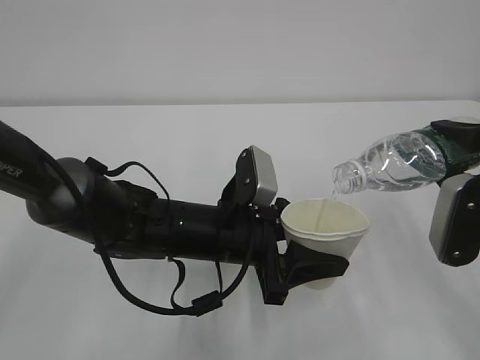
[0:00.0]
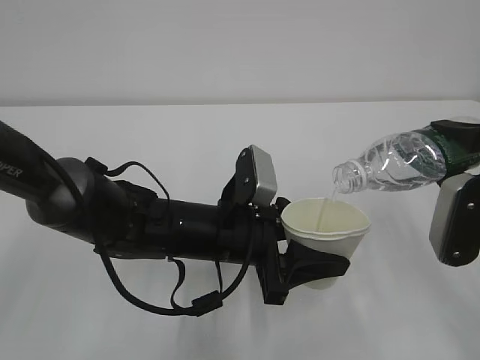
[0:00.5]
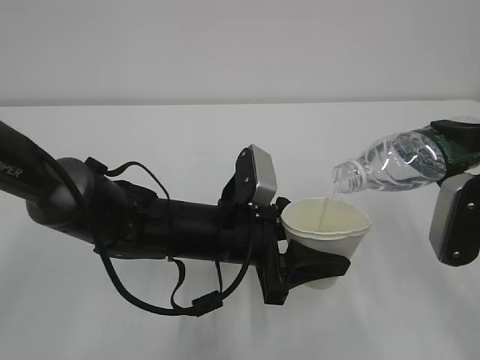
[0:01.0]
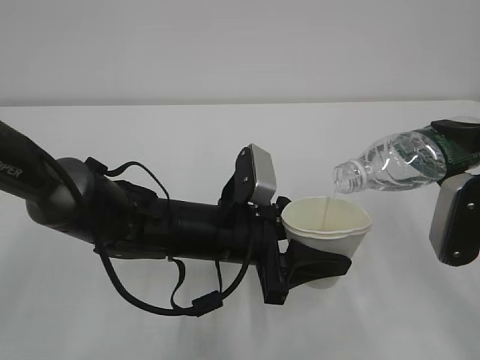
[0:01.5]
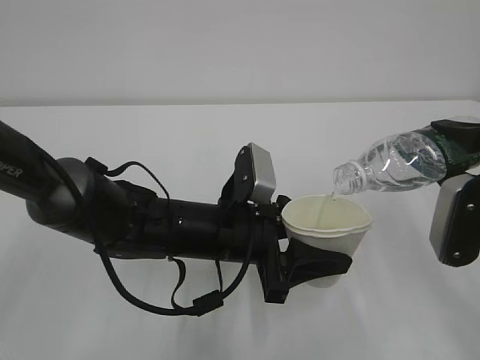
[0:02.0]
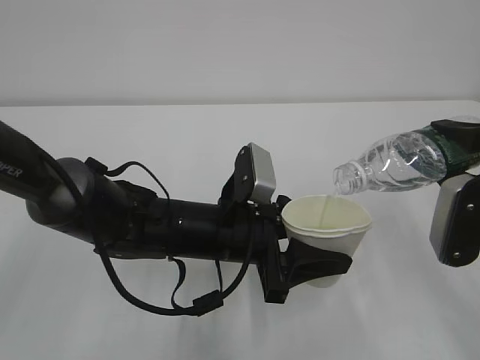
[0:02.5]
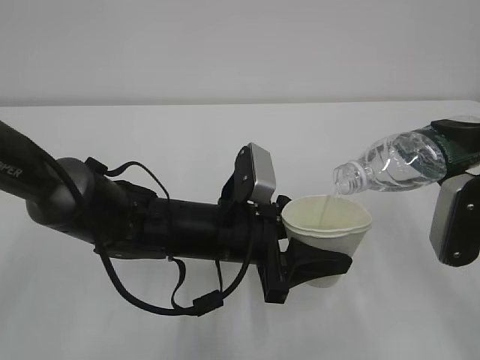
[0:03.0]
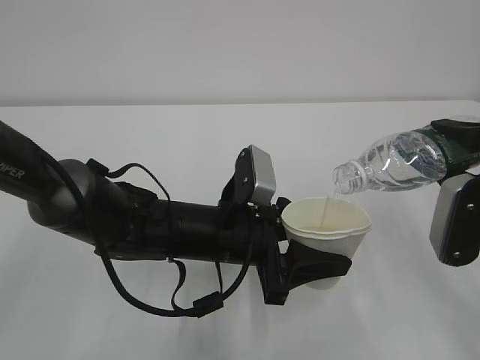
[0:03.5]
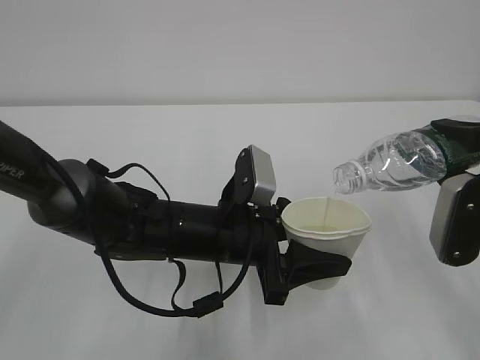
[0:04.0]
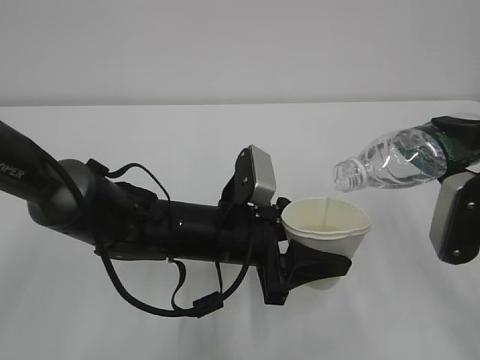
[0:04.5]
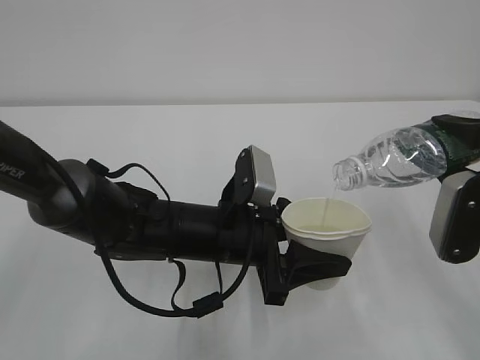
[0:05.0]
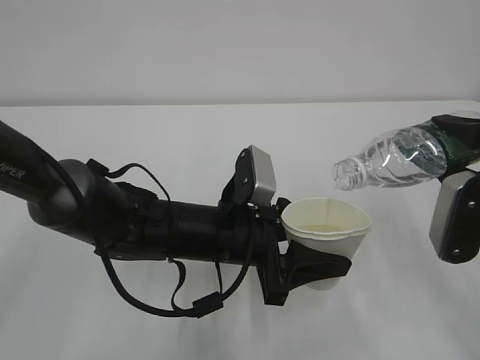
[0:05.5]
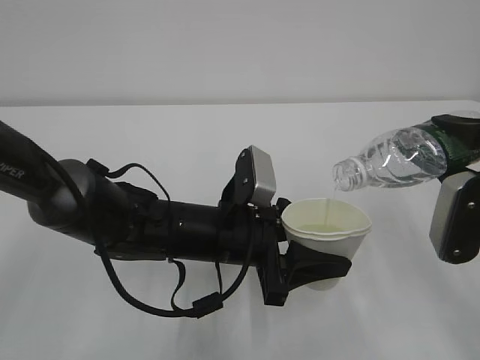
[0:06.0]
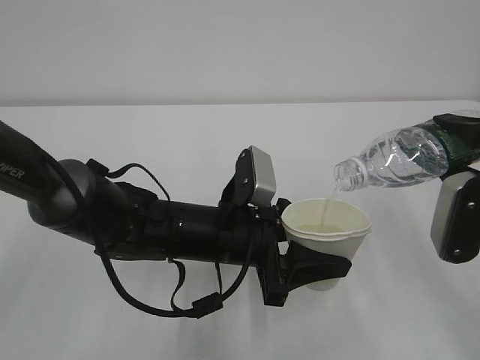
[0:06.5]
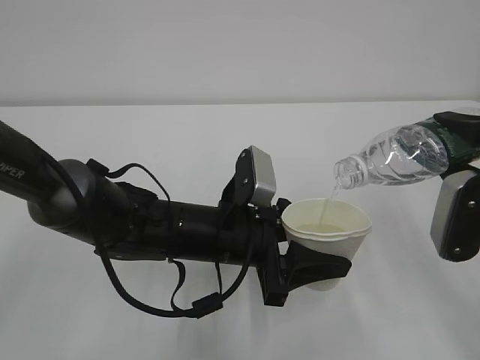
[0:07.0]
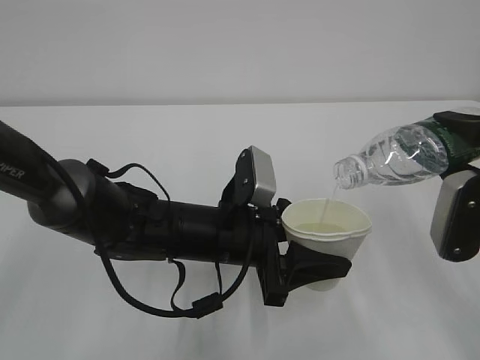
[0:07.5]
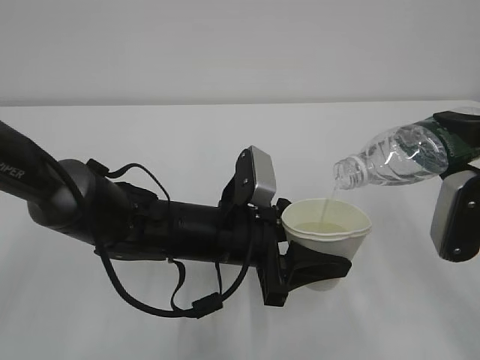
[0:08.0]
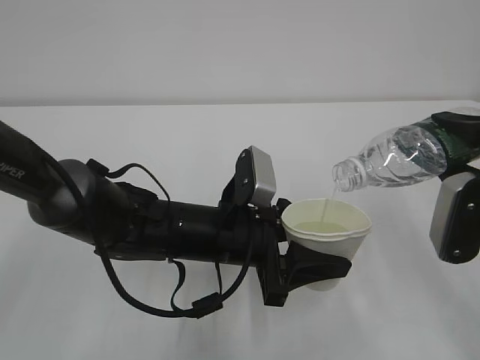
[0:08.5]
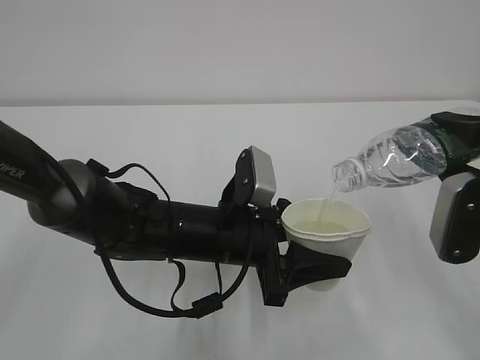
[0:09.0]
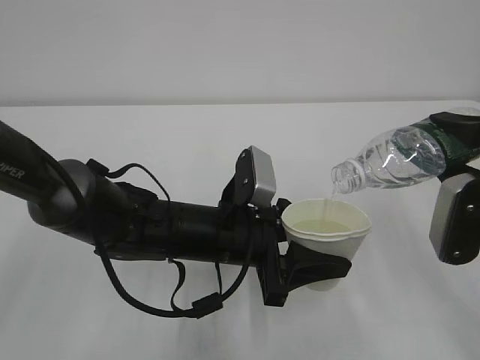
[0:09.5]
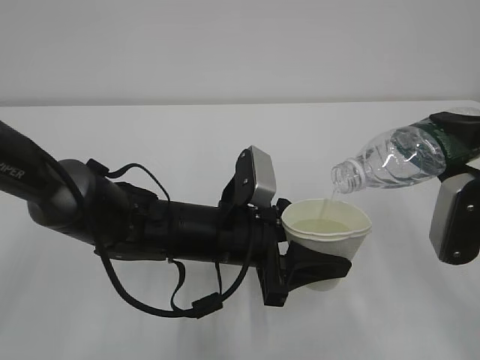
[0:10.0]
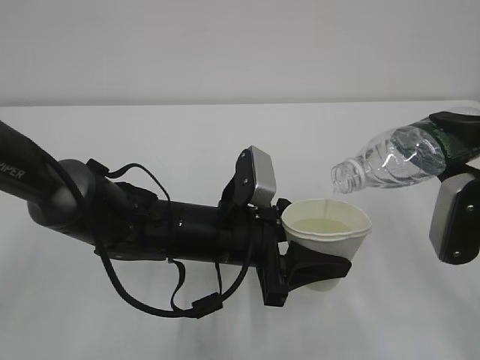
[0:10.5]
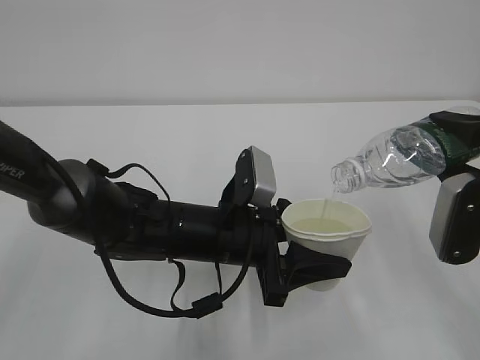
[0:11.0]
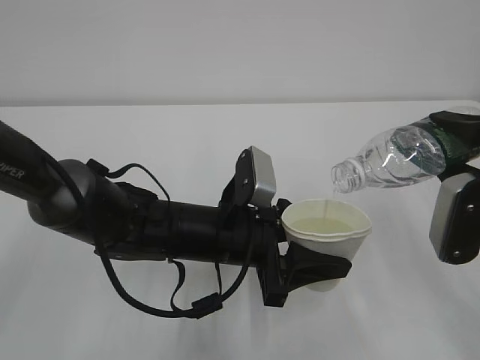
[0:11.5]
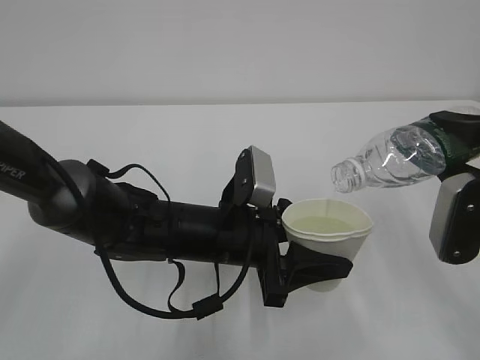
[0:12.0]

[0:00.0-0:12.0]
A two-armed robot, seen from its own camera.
0:00.0 to 0:12.0: Both grippers stay about where they are.

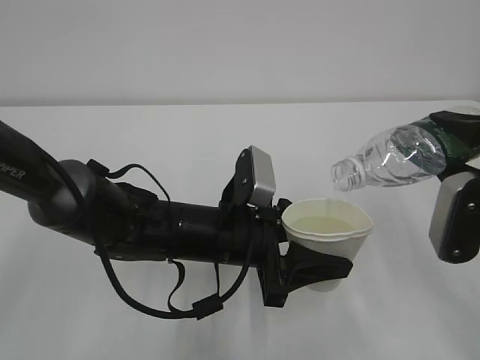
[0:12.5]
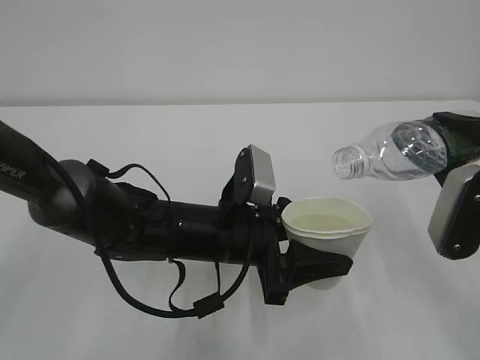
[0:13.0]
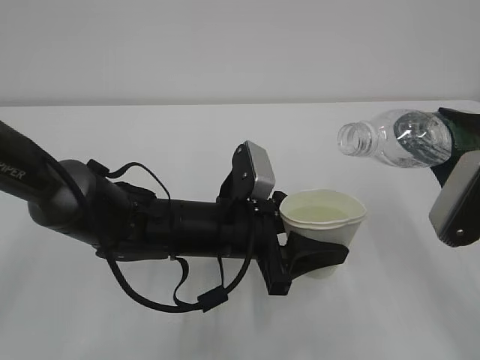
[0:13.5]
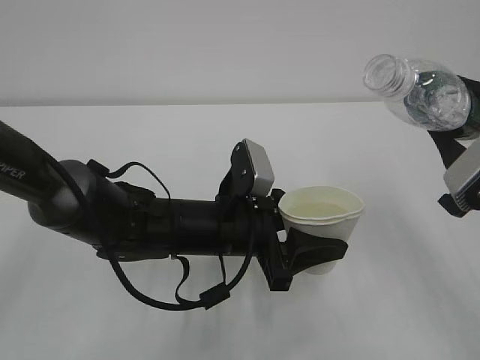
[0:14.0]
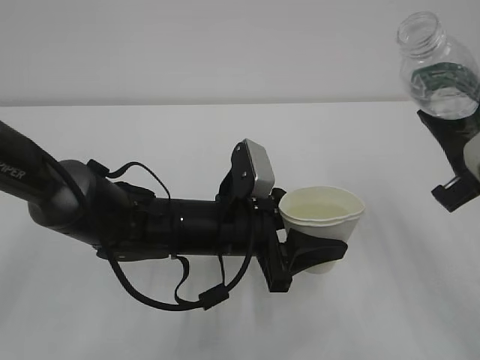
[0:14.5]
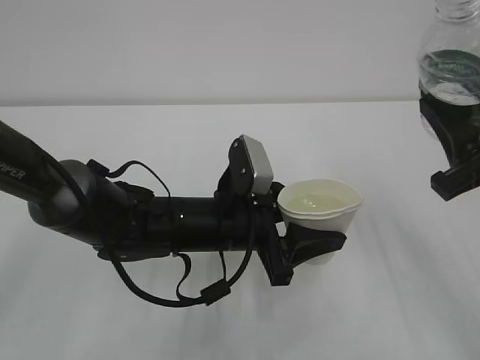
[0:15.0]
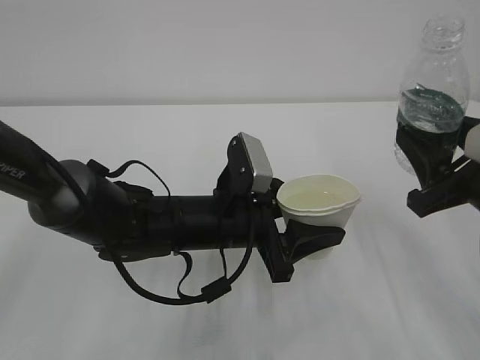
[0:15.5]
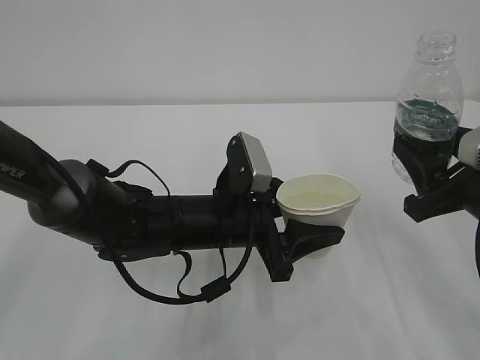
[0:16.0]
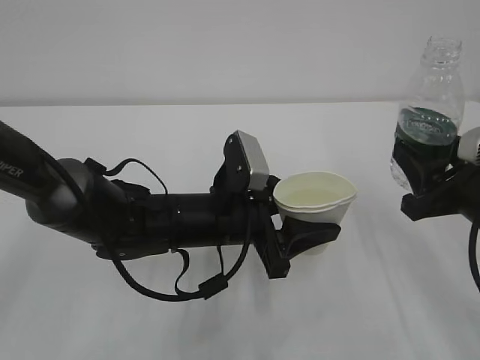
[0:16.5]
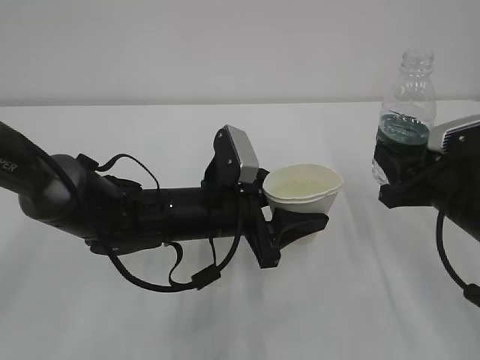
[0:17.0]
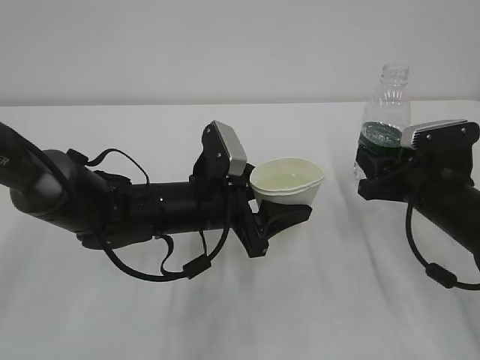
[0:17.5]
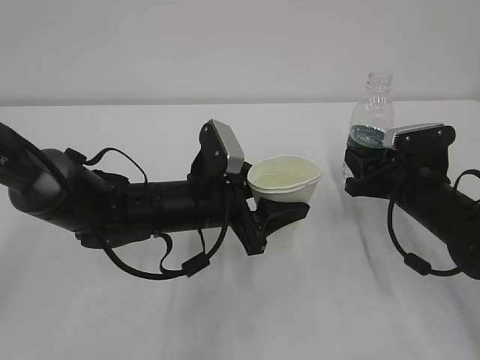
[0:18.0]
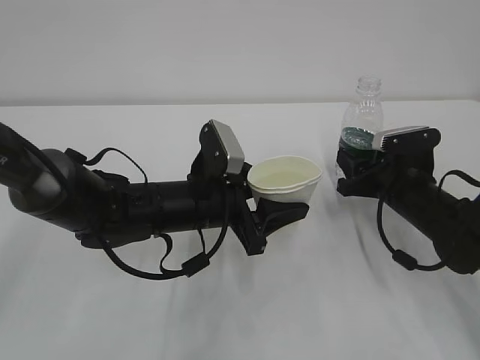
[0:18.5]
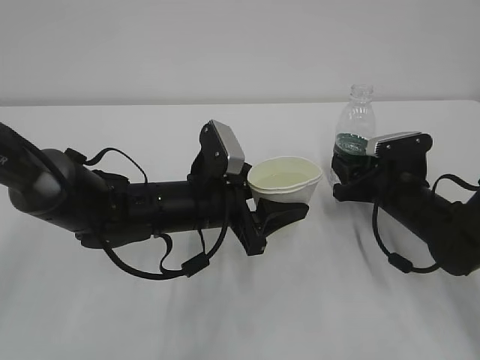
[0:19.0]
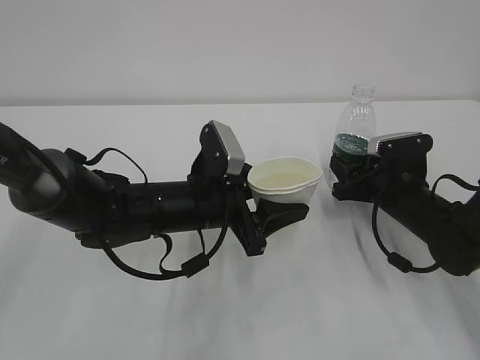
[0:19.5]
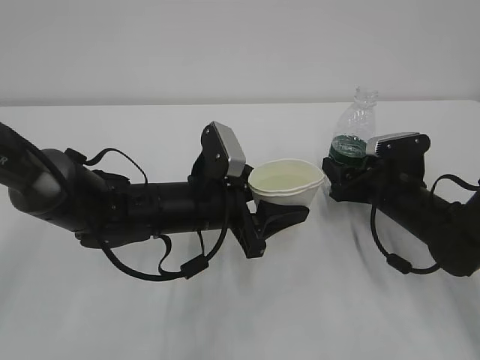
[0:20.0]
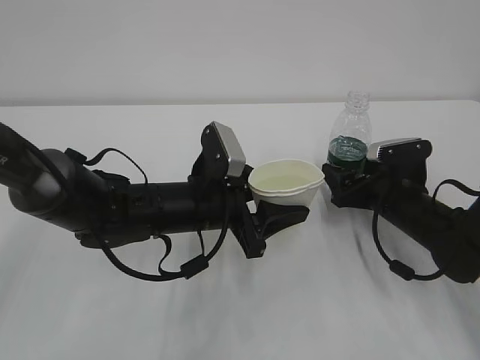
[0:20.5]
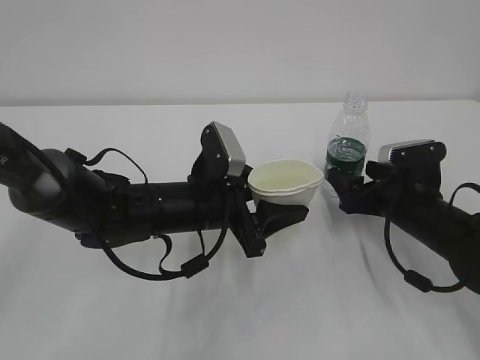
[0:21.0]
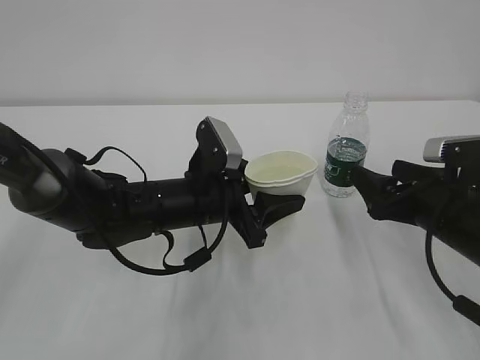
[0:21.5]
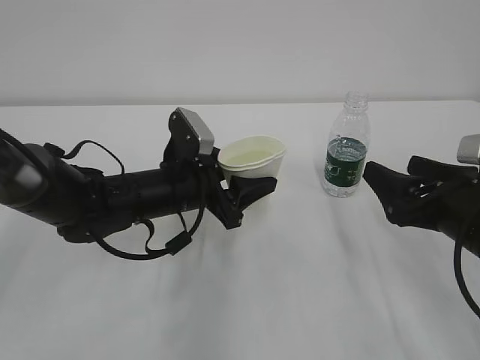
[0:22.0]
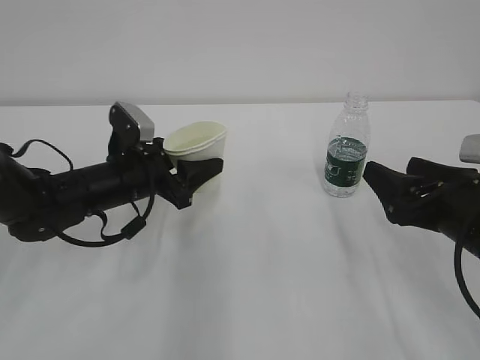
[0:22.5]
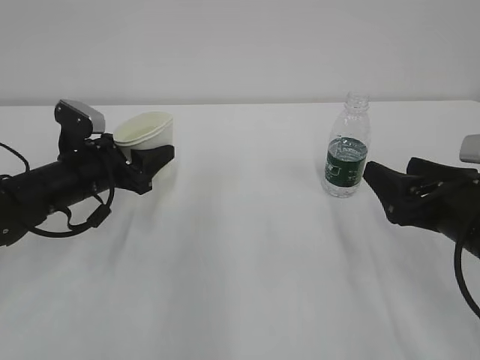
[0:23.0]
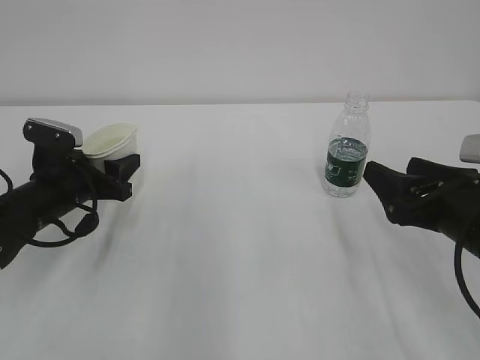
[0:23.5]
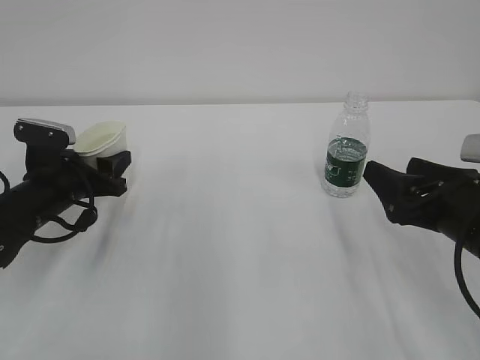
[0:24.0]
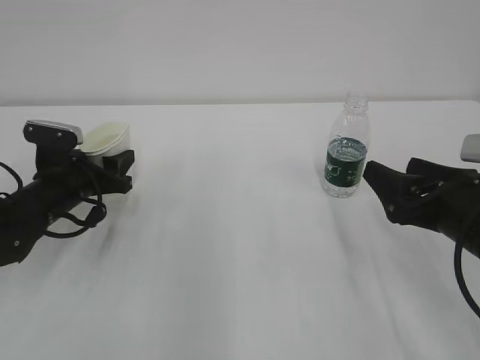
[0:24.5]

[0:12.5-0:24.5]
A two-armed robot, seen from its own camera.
0:14.5 to 0:16.5: The right gripper is displaced downward by about 5 cm.
0:16.5 to 0:18.5: The right gripper goes roughly 15 cm forward and downward.
0:18.5 to 0:20.5: The right gripper opens.
0:20.5 to 0:22.5: The left gripper is displaced to the left by some 10 cm. The right gripper moves backward and upward, roughly 15 cm.
0:22.5 to 0:24.5: The left gripper is displaced to the left by about 10 cm.

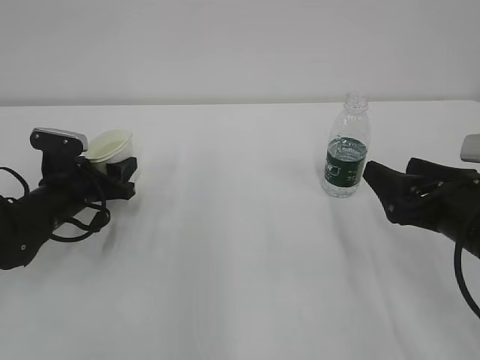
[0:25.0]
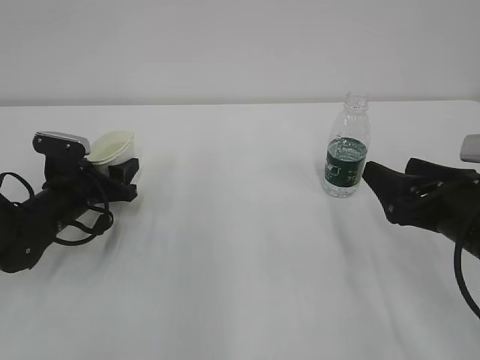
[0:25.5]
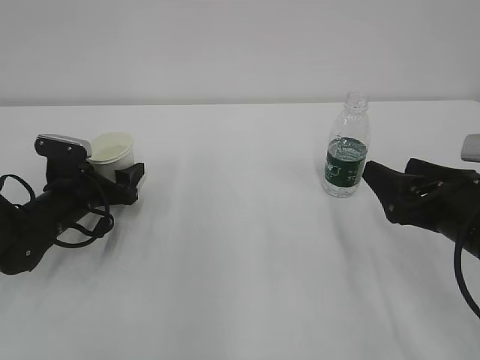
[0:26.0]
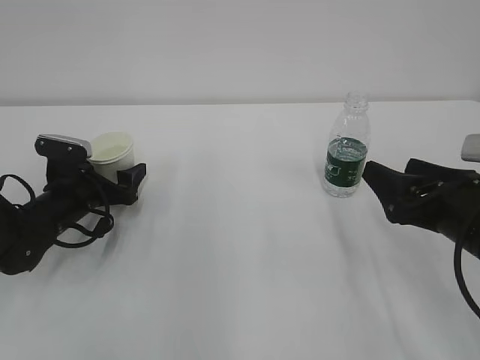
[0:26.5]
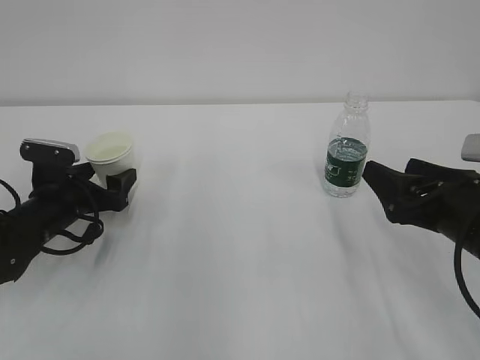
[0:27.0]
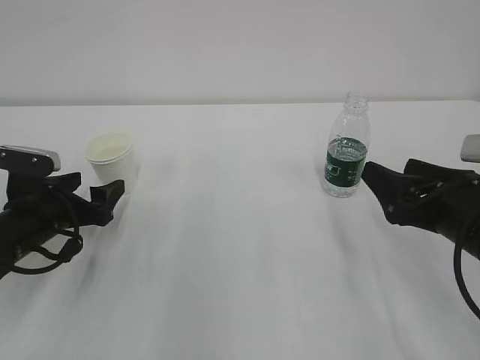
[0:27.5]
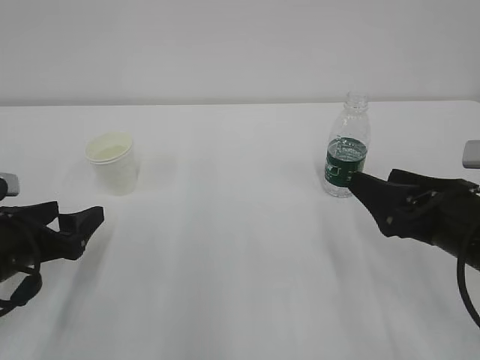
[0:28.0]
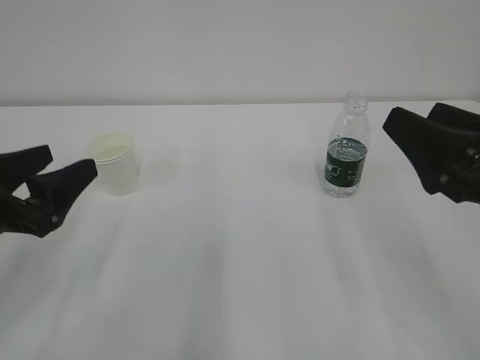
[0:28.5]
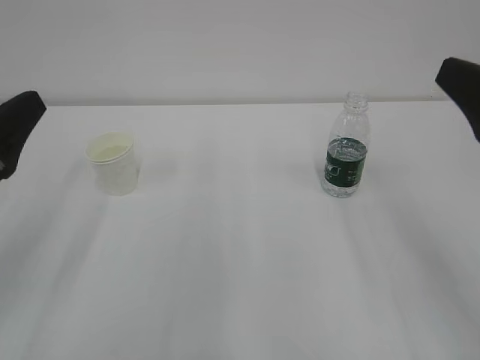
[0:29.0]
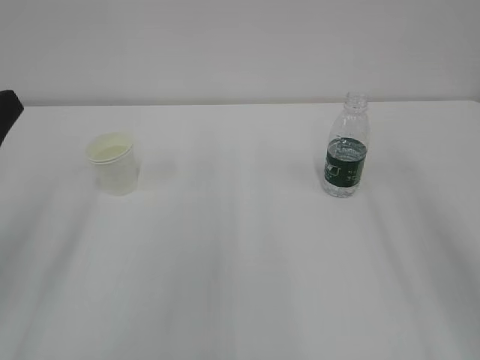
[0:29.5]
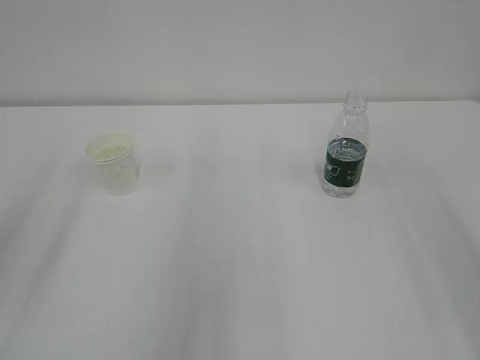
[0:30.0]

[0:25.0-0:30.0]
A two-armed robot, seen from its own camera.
0:25.0 to 0:27.5: The left gripper is displaced backward by approximately 5 cm, and opens up.
0:27.5 to 0:30.0: Both grippers move upward and backward, approximately 25 cm.
